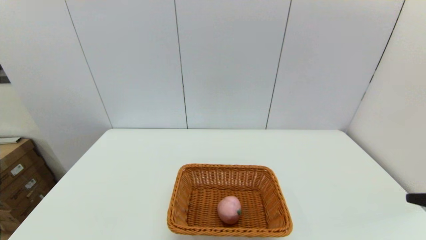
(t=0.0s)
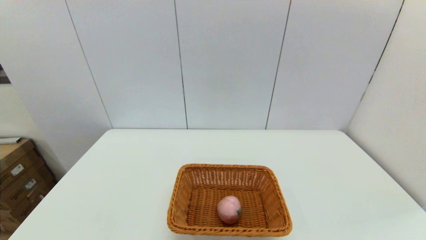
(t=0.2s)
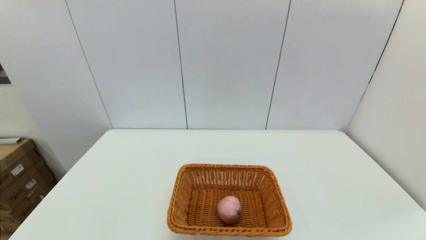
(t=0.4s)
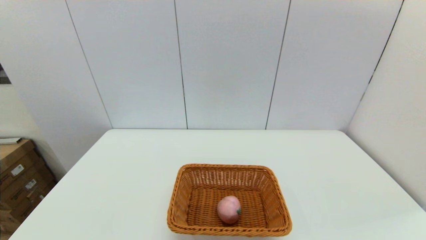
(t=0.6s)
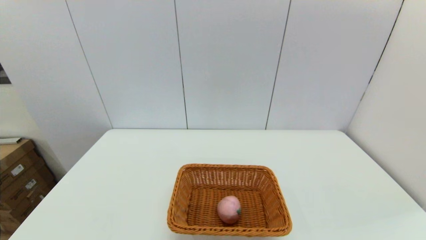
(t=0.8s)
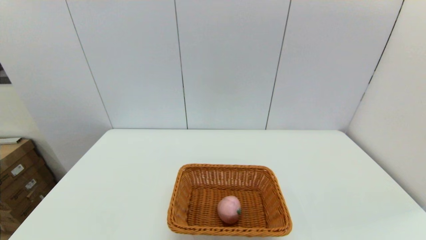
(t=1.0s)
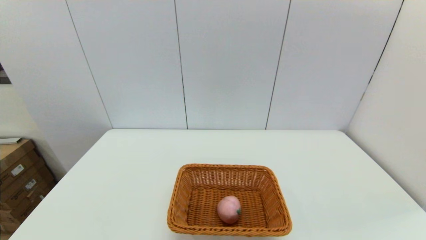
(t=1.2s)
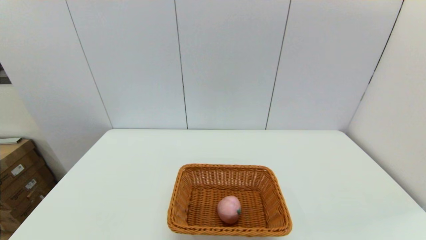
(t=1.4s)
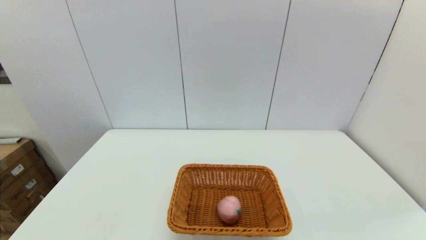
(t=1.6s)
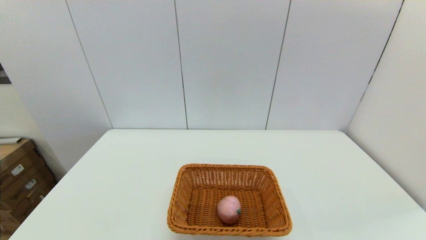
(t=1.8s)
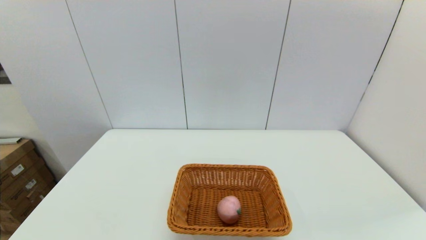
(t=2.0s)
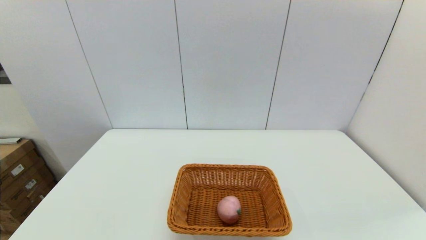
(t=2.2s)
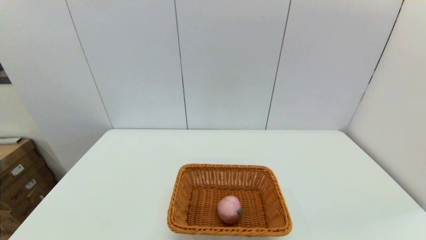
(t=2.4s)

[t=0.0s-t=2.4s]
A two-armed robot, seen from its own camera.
t=1.2s to t=2.4s: The two grippers keep their place.

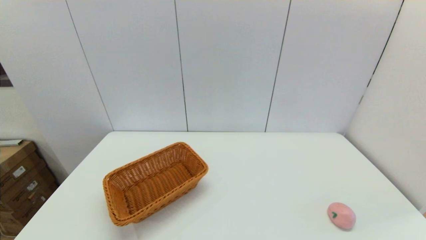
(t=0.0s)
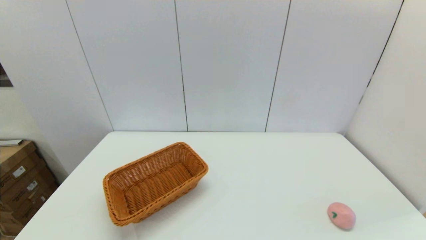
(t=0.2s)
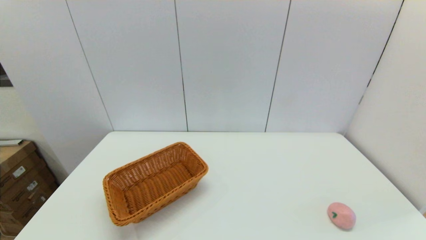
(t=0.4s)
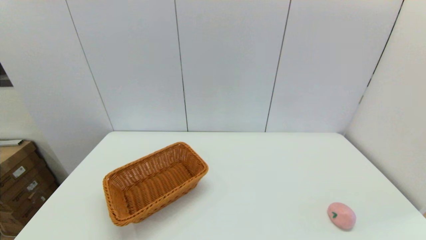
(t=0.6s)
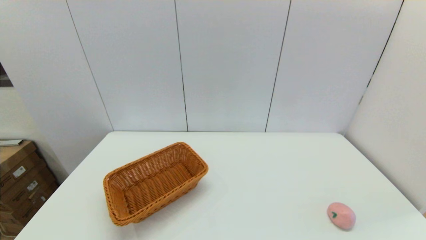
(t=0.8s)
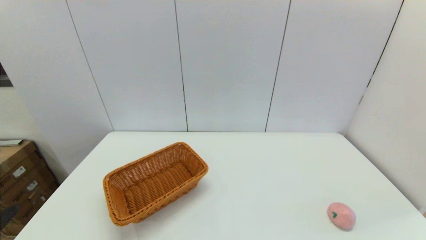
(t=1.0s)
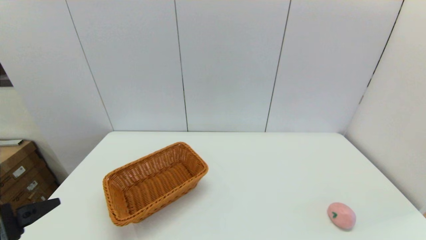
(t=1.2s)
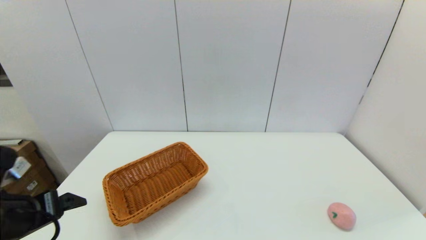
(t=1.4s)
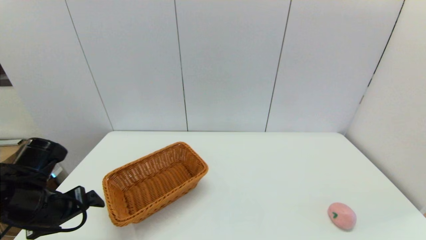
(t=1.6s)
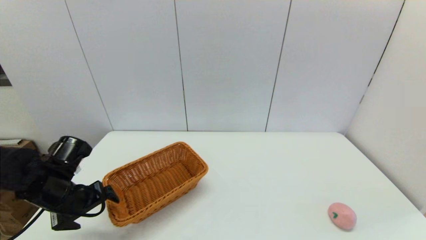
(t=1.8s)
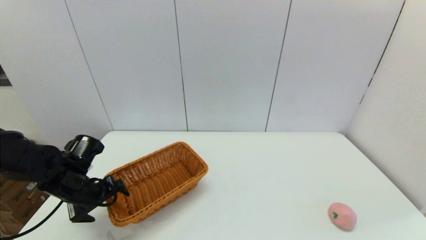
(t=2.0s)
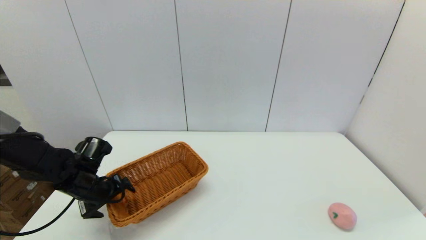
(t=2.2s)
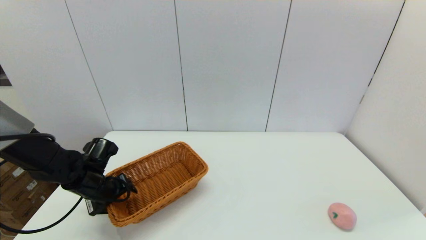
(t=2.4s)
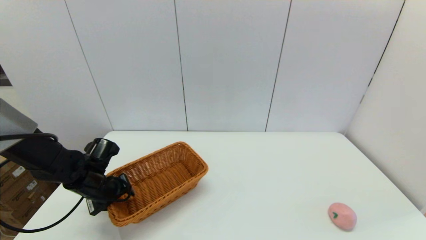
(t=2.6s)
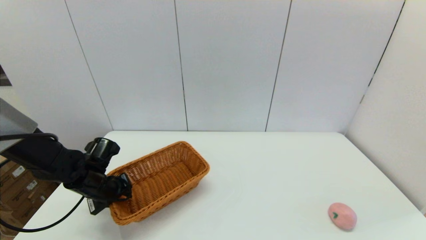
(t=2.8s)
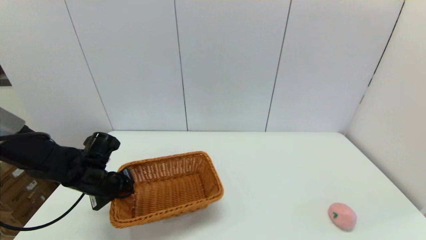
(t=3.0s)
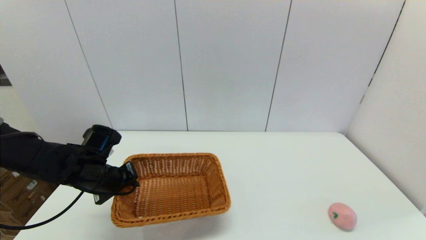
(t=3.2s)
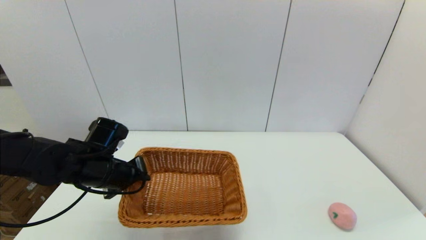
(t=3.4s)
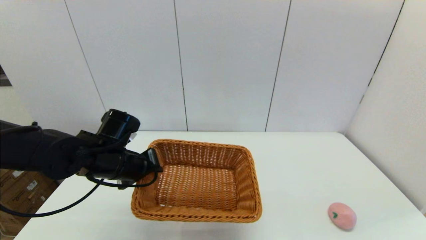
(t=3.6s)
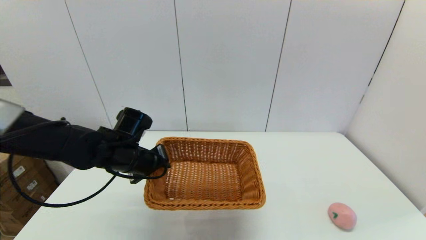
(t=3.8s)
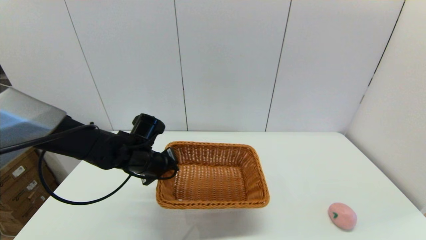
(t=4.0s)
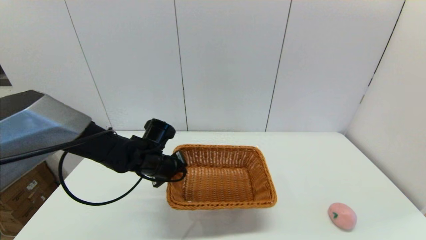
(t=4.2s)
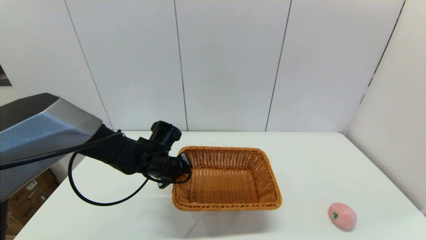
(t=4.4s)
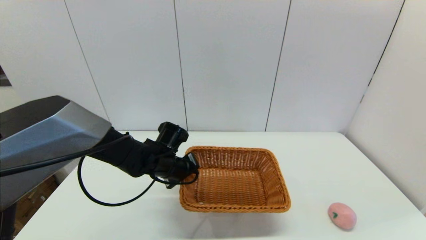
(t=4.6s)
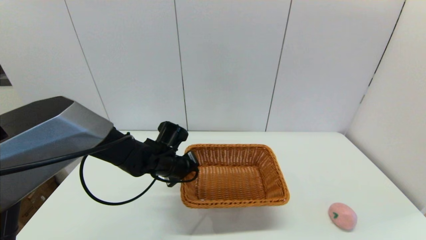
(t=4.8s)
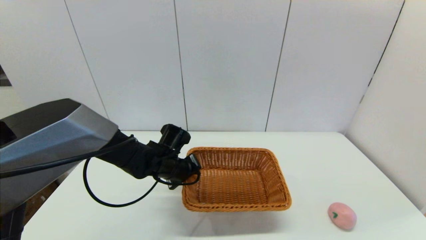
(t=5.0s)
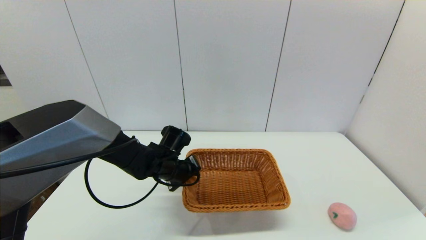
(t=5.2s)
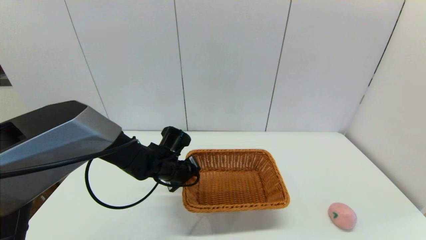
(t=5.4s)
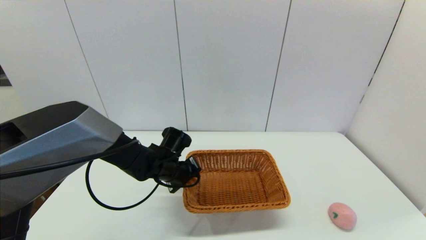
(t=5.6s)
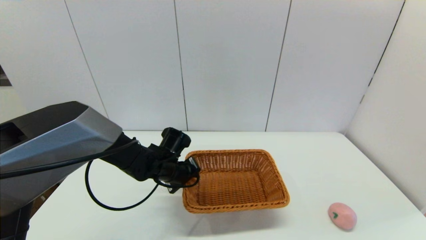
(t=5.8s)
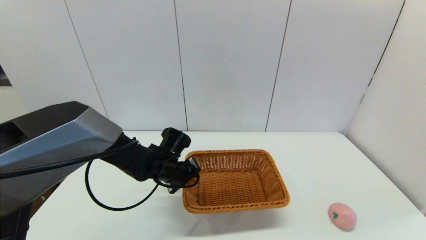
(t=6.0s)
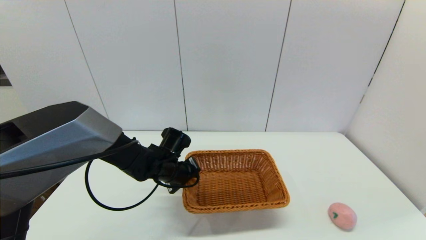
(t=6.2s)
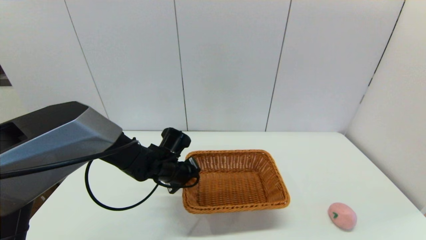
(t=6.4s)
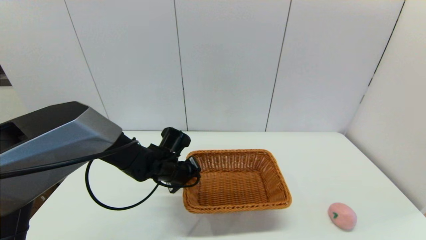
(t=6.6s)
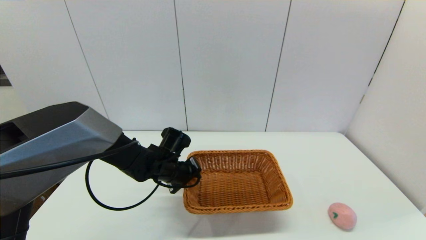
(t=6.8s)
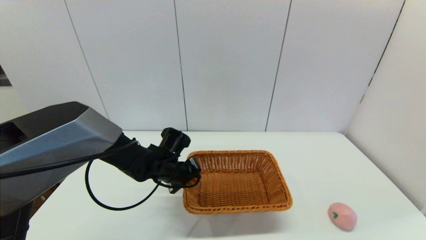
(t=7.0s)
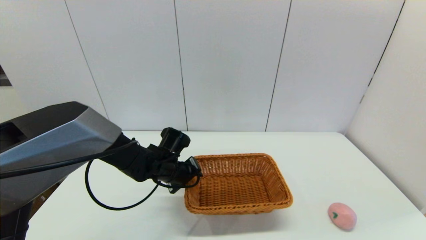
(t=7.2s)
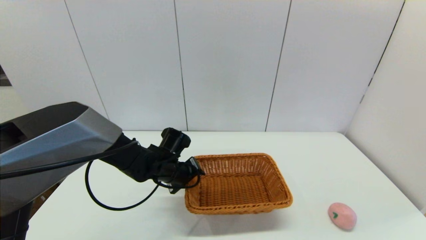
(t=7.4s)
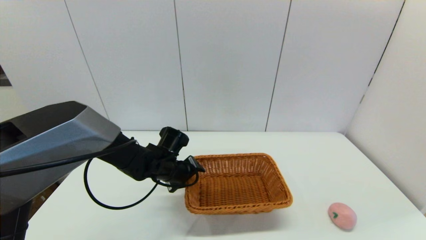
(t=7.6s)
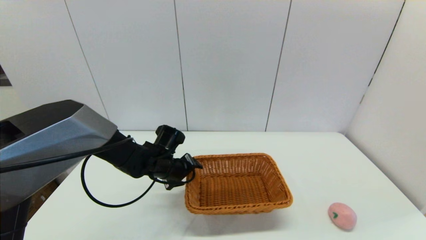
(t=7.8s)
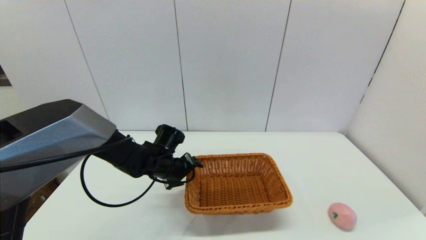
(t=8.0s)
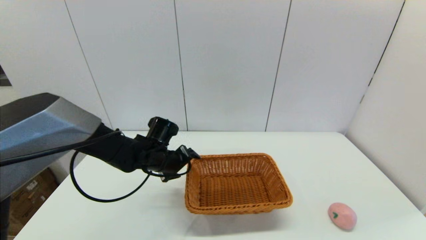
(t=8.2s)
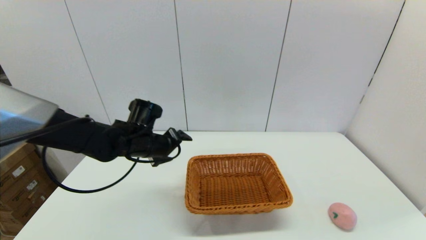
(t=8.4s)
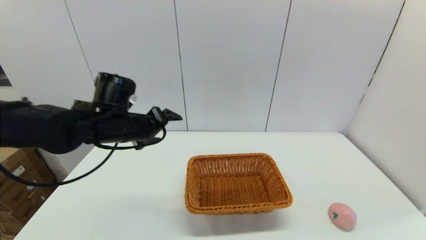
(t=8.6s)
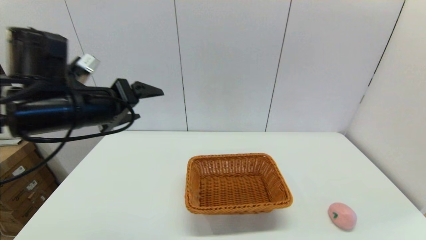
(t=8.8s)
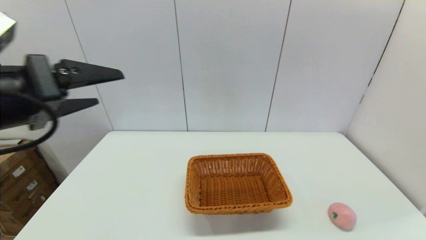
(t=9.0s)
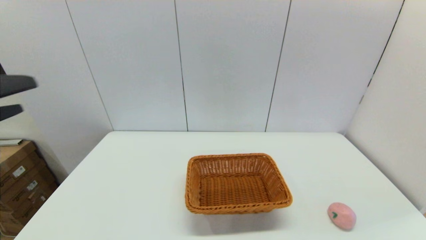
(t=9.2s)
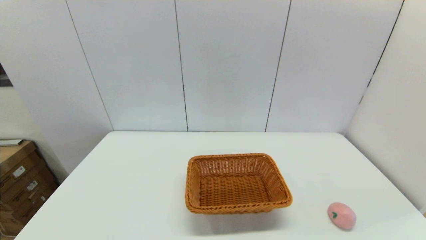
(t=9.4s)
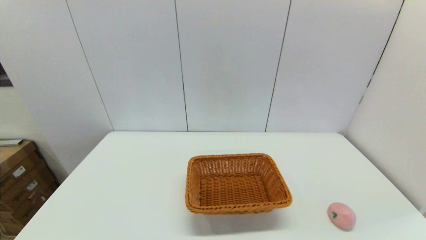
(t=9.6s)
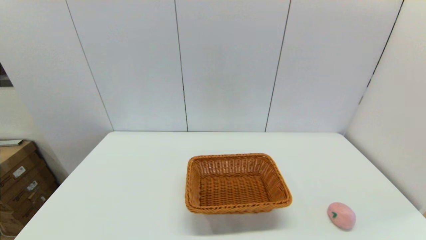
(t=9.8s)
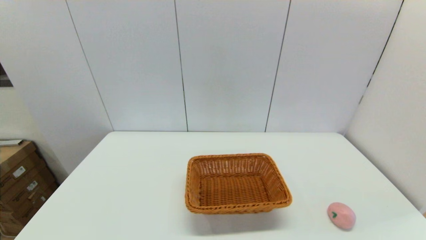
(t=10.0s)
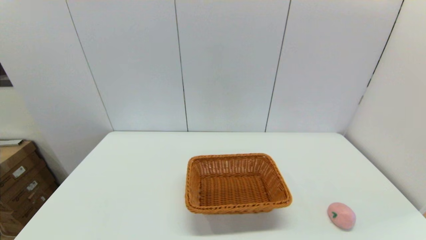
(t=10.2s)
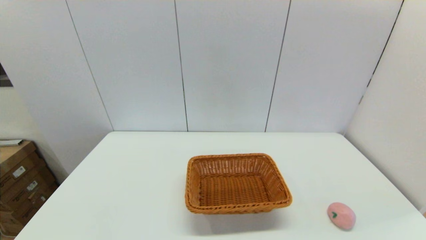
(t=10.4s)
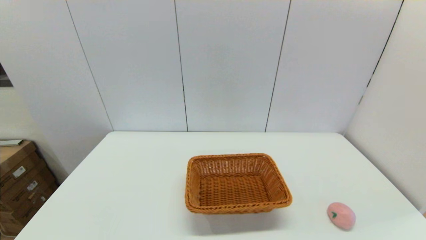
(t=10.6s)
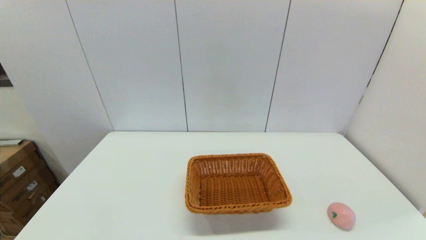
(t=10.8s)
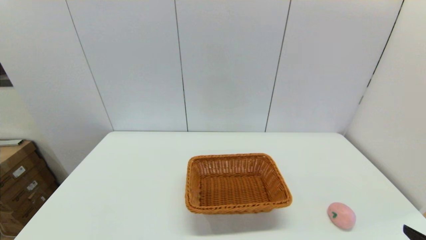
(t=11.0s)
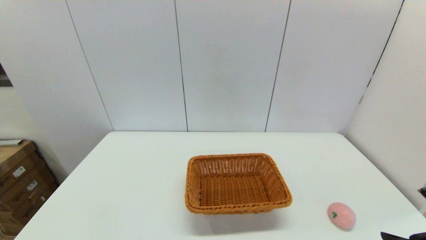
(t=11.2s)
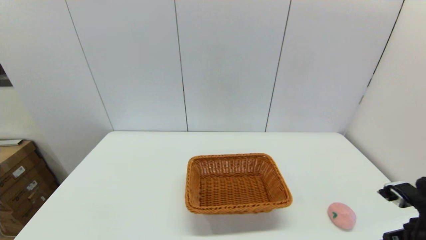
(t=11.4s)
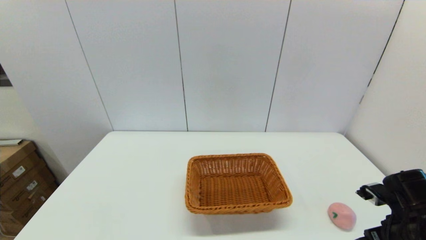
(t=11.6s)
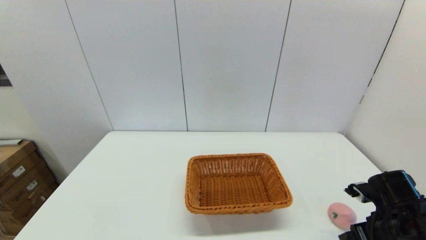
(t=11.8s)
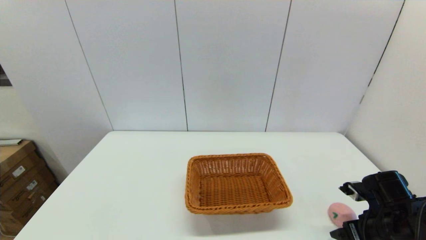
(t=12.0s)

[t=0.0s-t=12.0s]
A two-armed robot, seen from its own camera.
Step, t=0.0s to t=2.8s: Grasp the light basket with the left gripper.
Step, t=3.0s to t=7.6s: Place the light basket on the middle of the table with the left gripper.
t=0.0s to t=1.6s: The left gripper is displaced forward by about 20 cm.
t=1.6s to t=3.0s: The left gripper moves forward and downward, approximately 10 cm, and closes its fingers.
t=3.0s to t=4.4s: The left gripper travels to the right by some 15 cm.
t=4.4s to t=6.0s: The grippers move only a little.
t=6.0s to t=7.6s: The left gripper opens up.
t=7.6s to t=9.0s: The left gripper is displaced upward, backward and to the left by approximately 35 cm.
t=9.0s to t=10.4s: The left gripper moves downward and backward, about 30 cm.
t=10.4s to t=12.0s: The right gripper moves forward, roughly 20 cm.

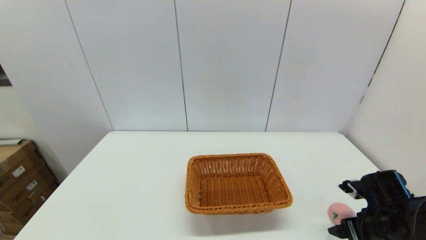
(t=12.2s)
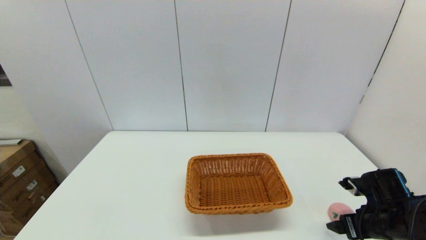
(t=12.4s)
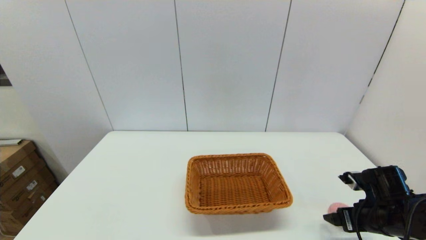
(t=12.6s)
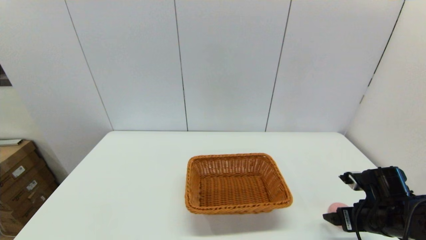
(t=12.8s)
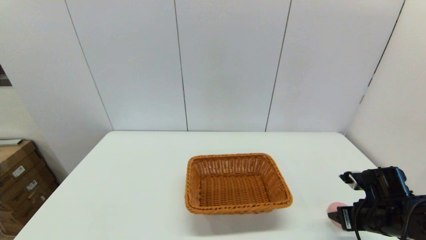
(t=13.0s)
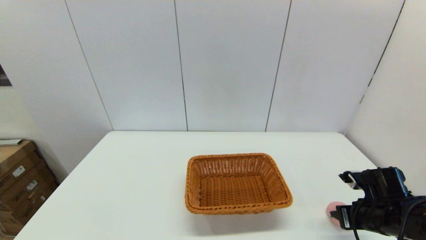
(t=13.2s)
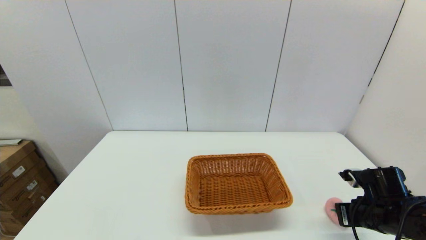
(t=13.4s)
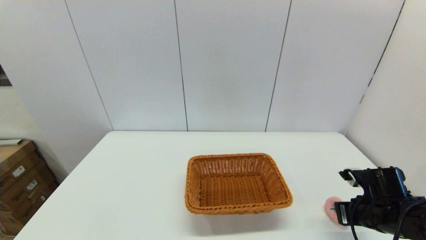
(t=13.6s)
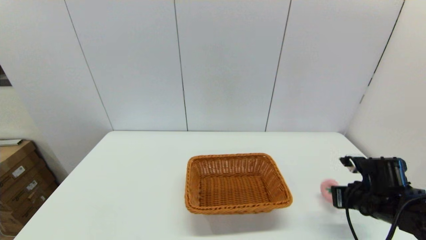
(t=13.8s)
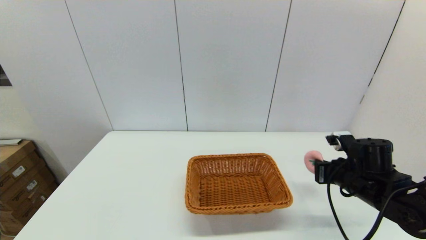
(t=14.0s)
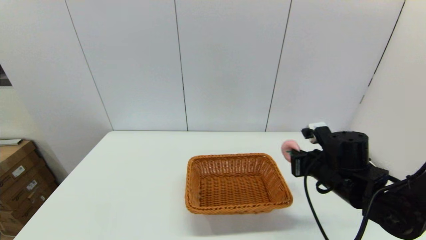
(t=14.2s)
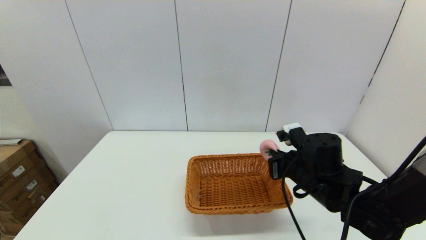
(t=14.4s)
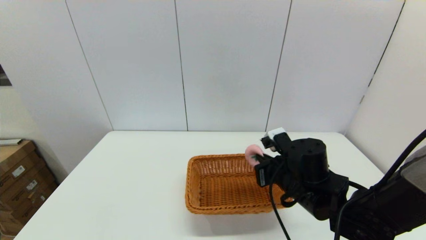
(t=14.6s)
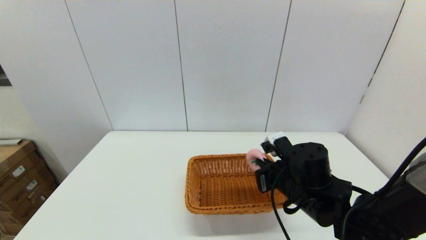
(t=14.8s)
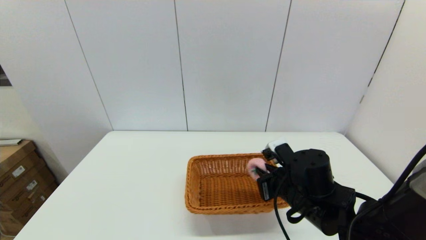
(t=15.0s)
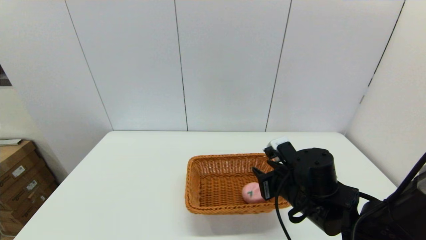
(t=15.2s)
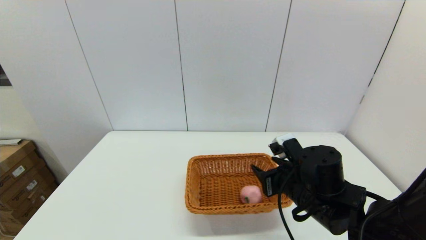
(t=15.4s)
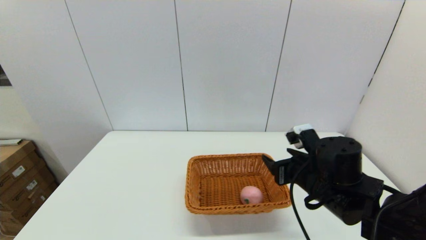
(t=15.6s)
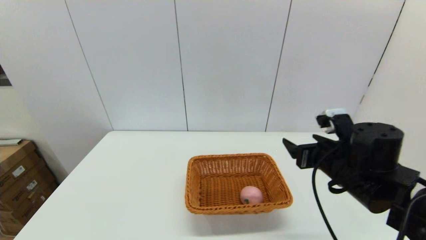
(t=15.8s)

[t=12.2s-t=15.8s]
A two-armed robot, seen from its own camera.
Step, t=13.6s to t=15.4s: Place the peach into the light basket with the right gripper.
t=12.2s to t=14.0s: The right gripper shifts about 5 cm forward, and closes its fingers.
t=14.0s to t=15.8s: The right gripper shifts roughly 10 cm upward and to the left, and opens its fingers.
